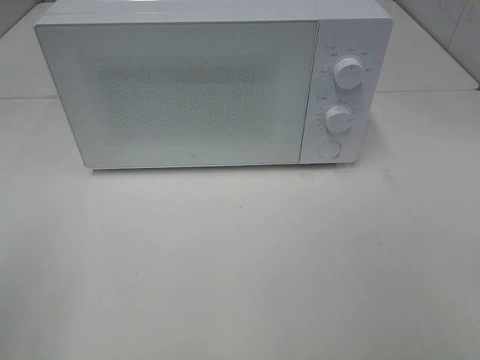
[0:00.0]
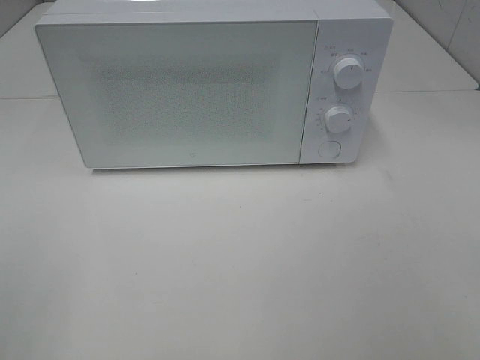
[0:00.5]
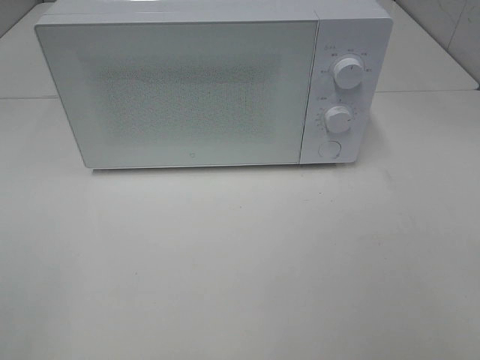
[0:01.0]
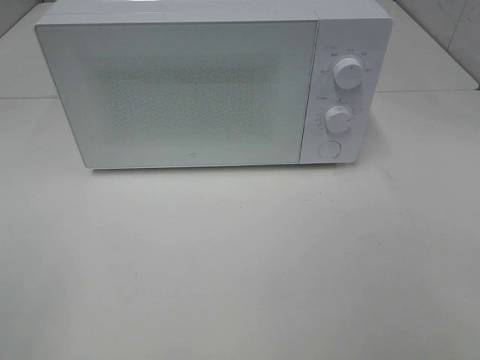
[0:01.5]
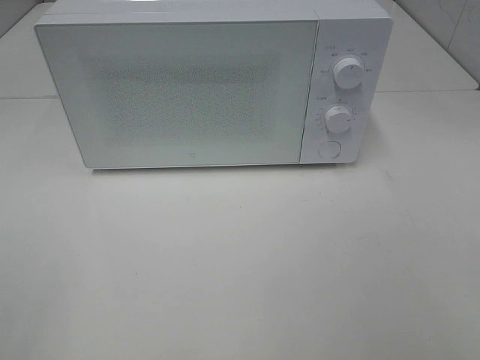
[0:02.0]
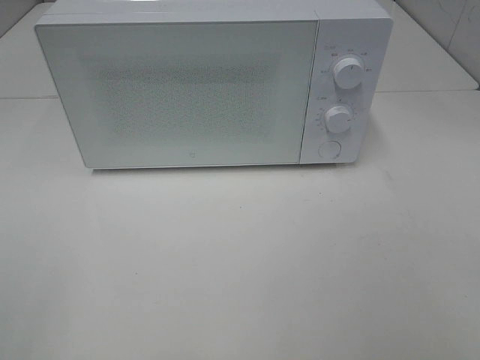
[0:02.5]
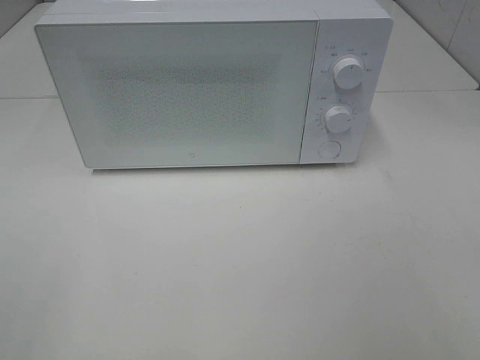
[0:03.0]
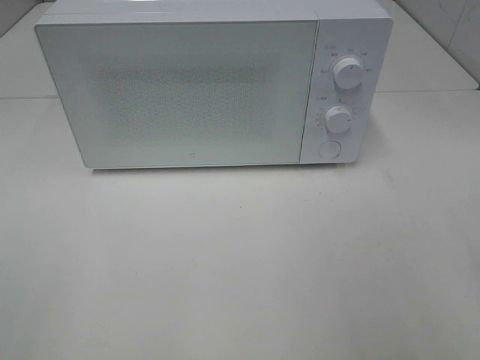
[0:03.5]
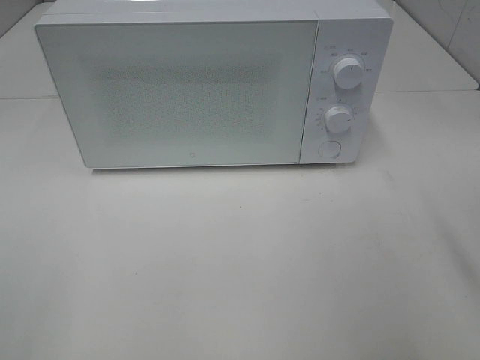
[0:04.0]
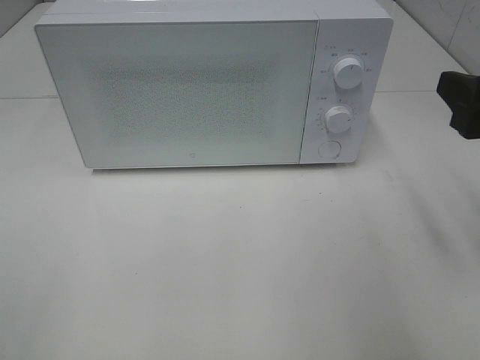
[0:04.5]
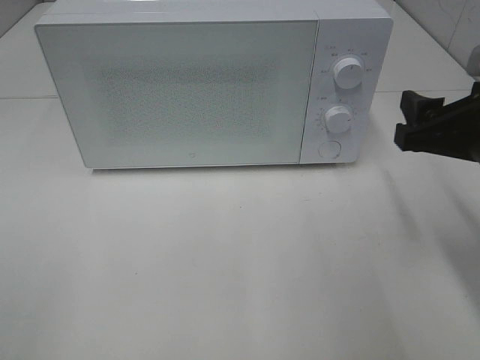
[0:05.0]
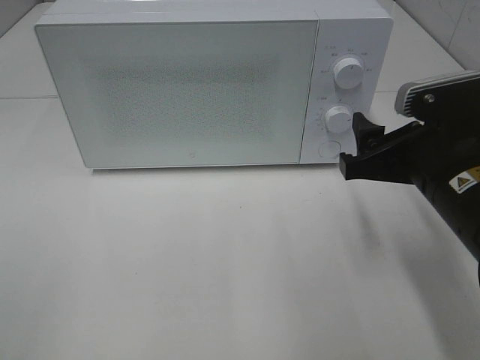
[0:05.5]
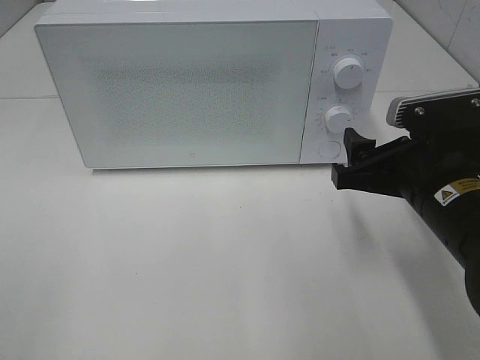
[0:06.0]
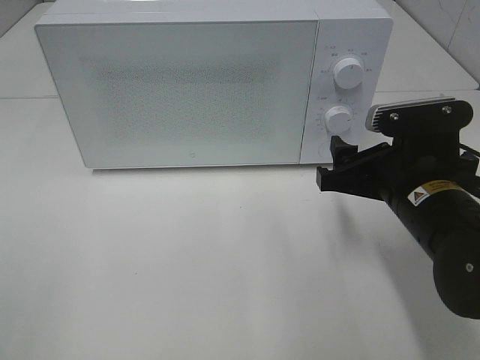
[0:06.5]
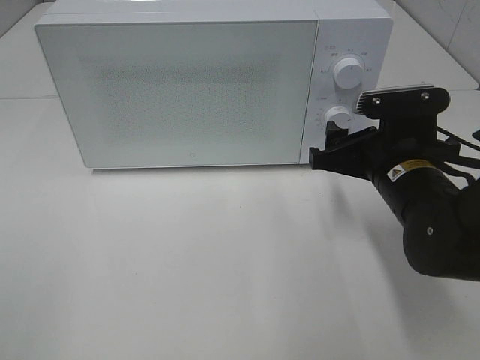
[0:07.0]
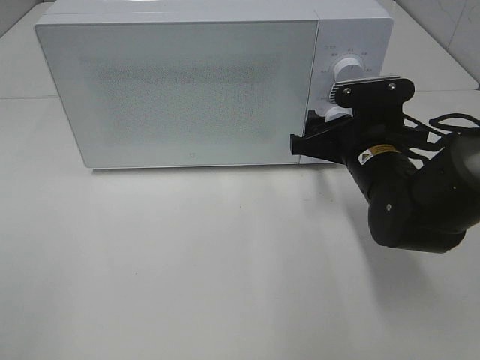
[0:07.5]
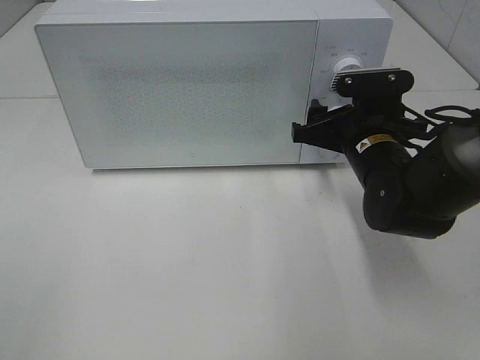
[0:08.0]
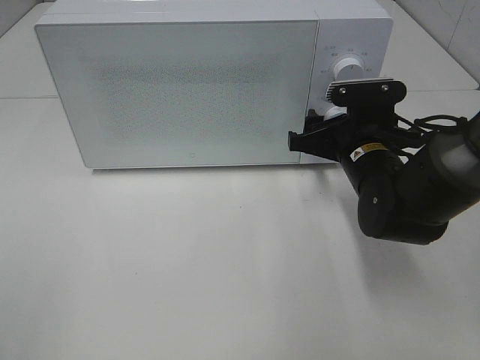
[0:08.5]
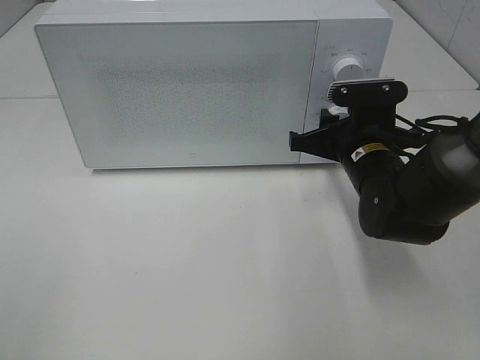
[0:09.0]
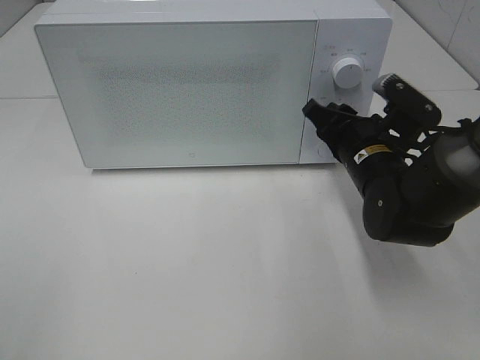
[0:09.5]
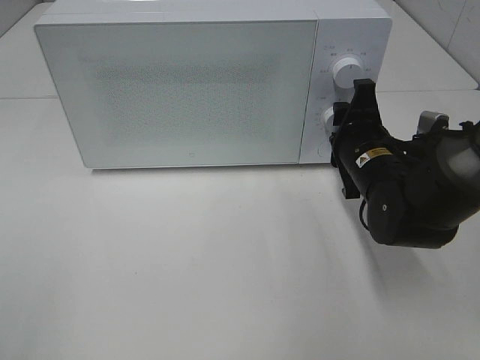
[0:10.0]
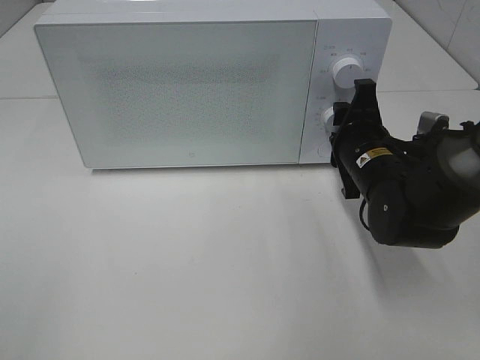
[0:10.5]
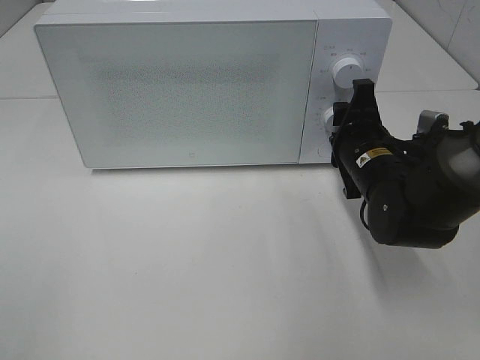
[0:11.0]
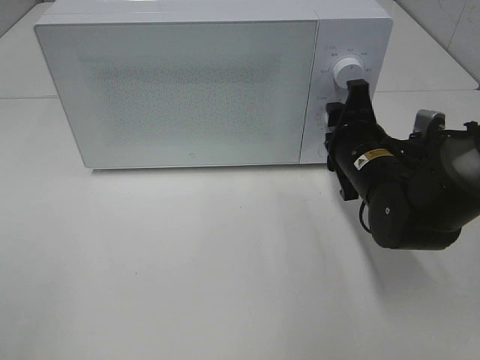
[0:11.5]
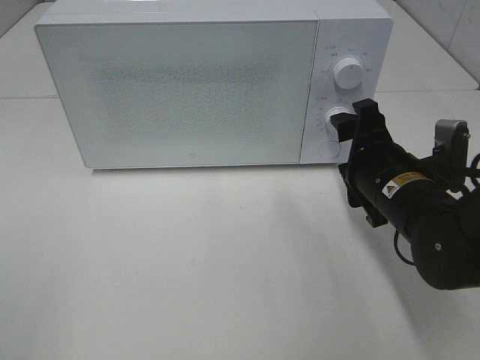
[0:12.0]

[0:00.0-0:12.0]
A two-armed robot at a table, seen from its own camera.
Task of the whole recording: Heat the burger.
Step, 0:00.0 to 0:11.5: Right hand: twist timer button.
0:04.0 to 0:06.0: The right gripper travels downward, to the left and forward by approximately 15 cm.
0:06.0 to 0:08.0: The right gripper heads forward, covering roughly 10 cm.
0:08.0 to 0:10.0: The right gripper closes up.
0:10.0 to 0:12.0: The right gripper goes some 5 cm backward.

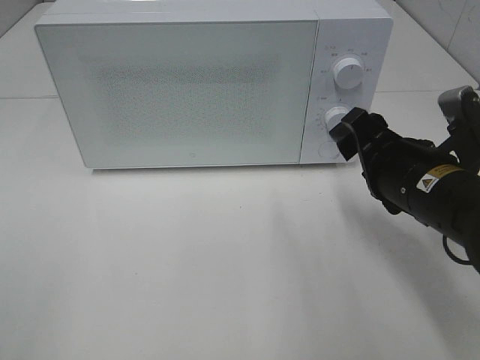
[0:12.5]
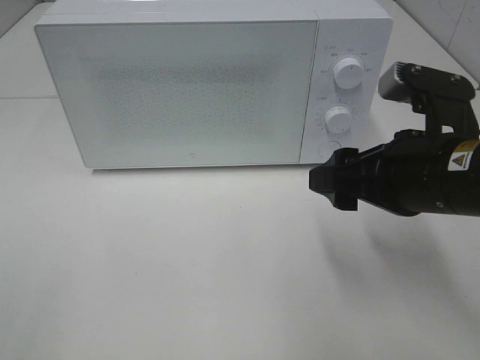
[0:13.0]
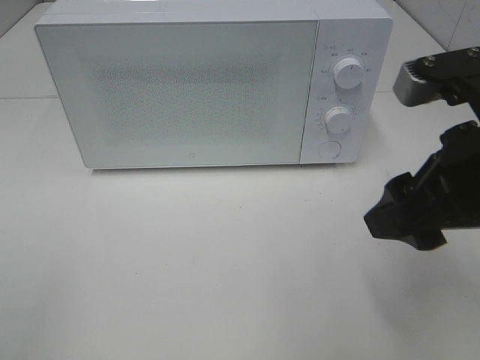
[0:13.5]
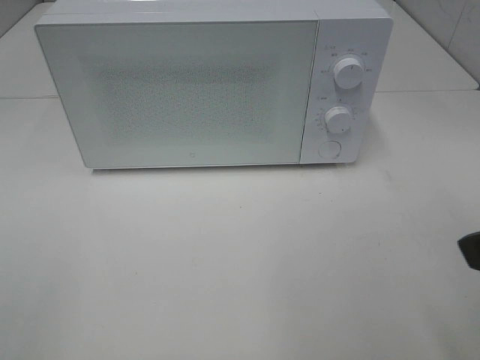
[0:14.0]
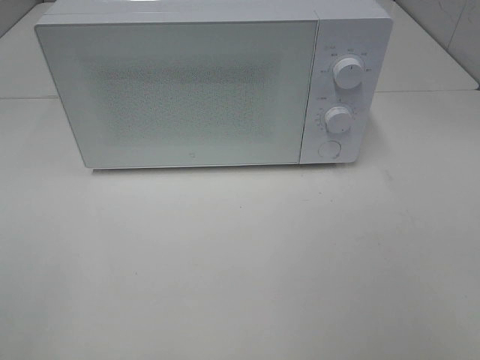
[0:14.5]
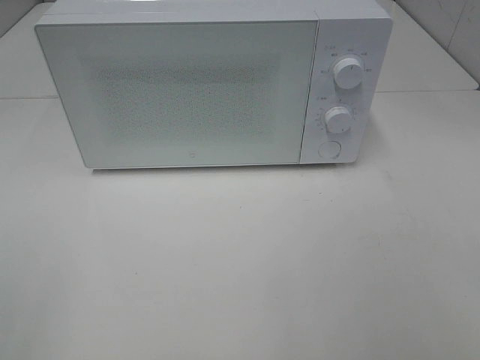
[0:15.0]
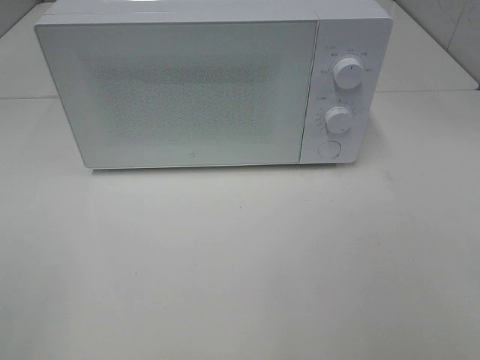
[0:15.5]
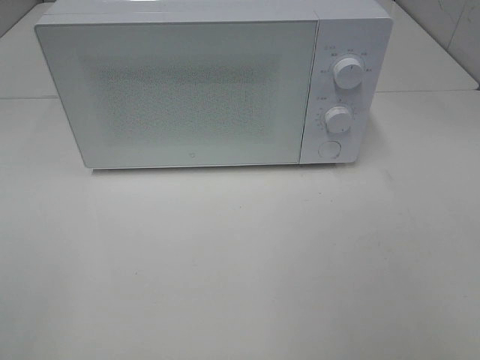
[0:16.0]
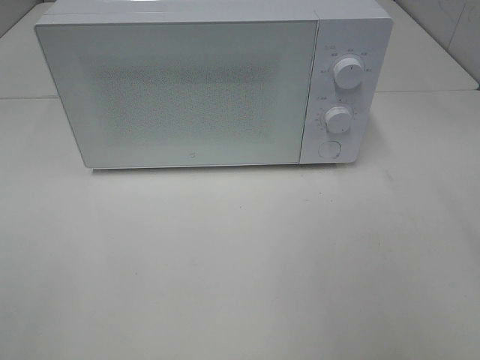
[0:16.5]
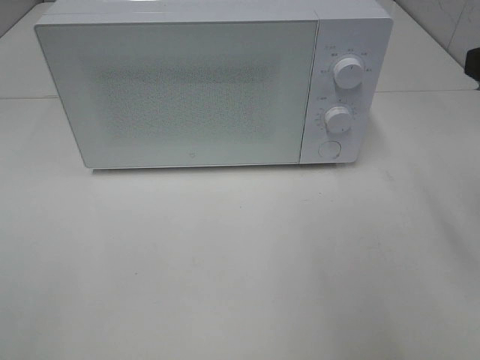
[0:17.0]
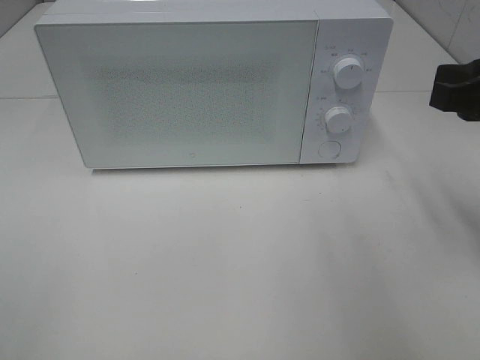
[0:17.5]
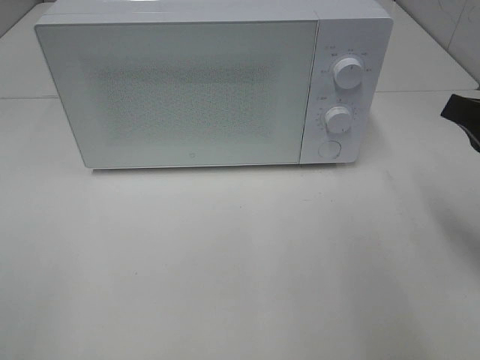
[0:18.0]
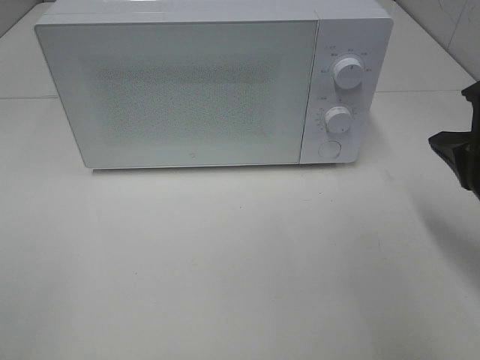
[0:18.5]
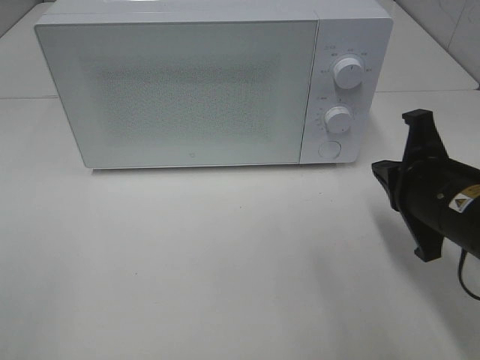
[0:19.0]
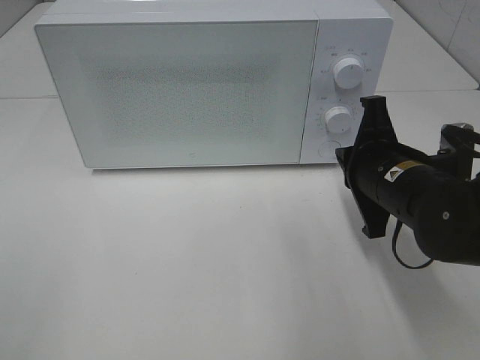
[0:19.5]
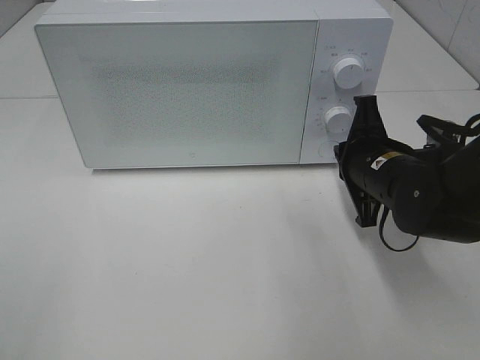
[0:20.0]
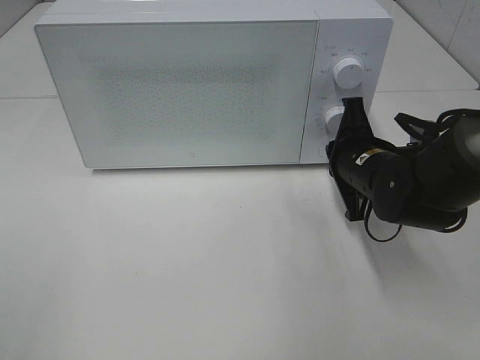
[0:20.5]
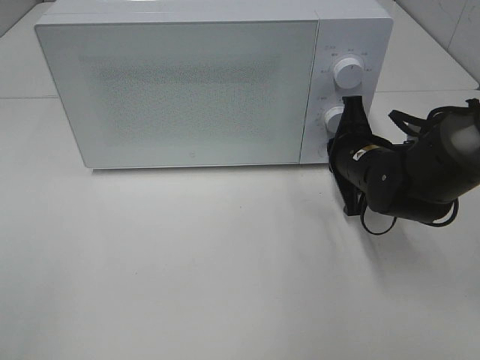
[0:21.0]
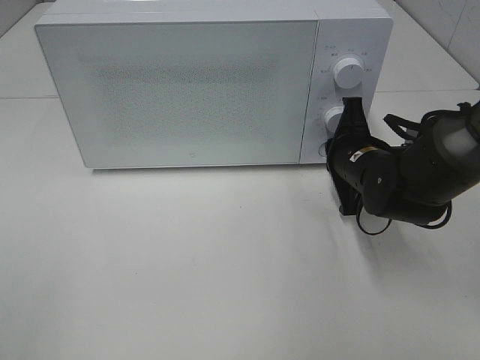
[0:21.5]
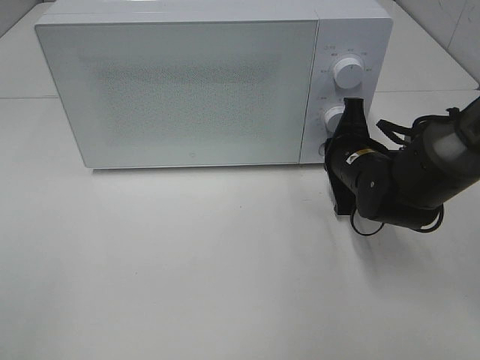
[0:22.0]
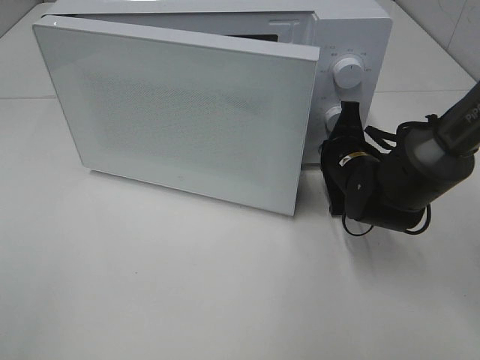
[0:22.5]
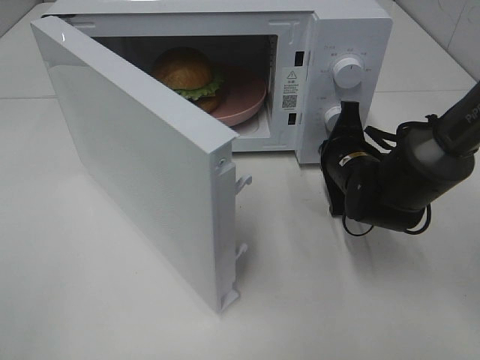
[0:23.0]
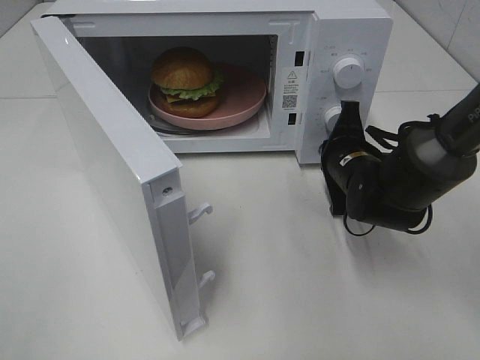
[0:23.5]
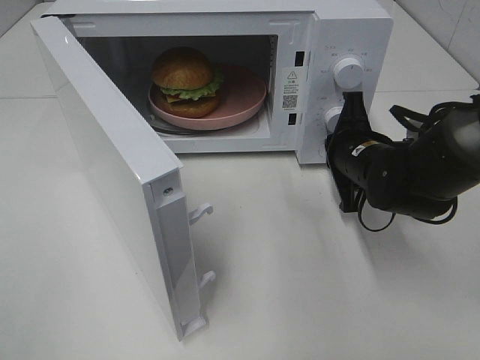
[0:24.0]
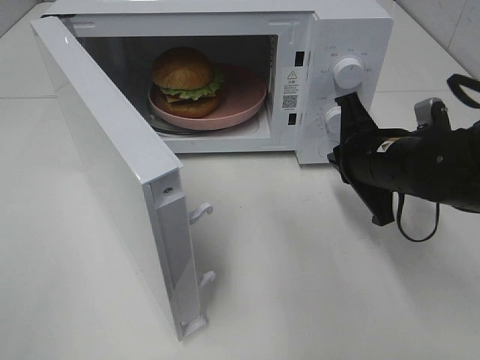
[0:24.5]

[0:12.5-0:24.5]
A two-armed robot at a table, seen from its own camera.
Task of the whole recording: Heat the burger.
Step, 0:12.5 to 0:24.0: Right hand: press the switch.
0:12.5 to 0:14.5: The right gripper heads backward, upward and to the right, covering approximately 30 cm.
0:16.5 to 0:18.5: The right gripper goes roughly 15 cm downward and forward, and closes up.
0:18.5 to 0:20.5: The right gripper heads forward, to the left and downward, covering roughly 15 cm.
0:20.5 to 0:22.5: The grippers move only a little.
0:22.5 to 0:24.5: The right gripper goes roughly 10 cm upward and backward.

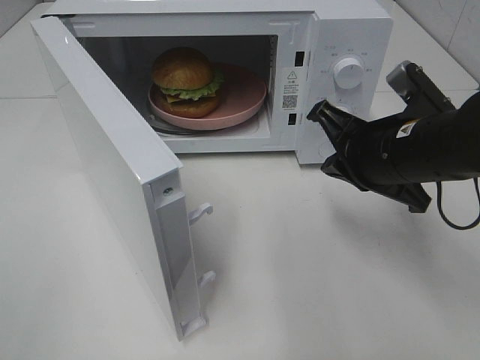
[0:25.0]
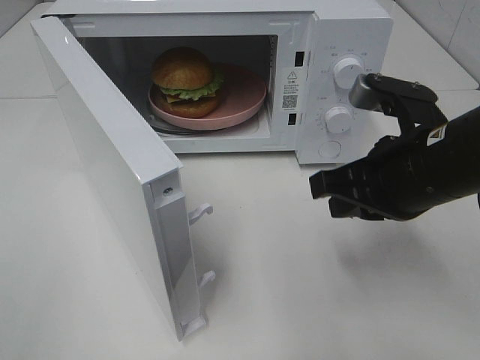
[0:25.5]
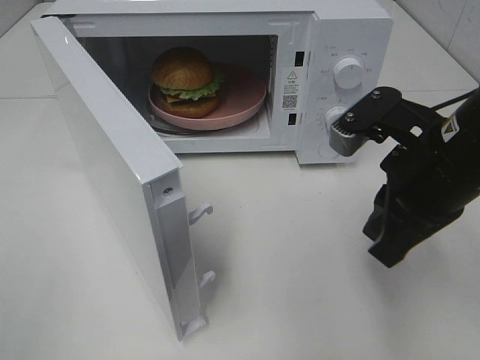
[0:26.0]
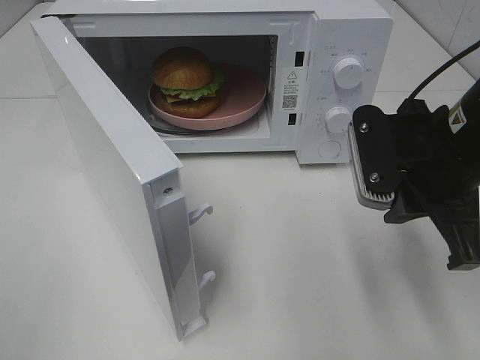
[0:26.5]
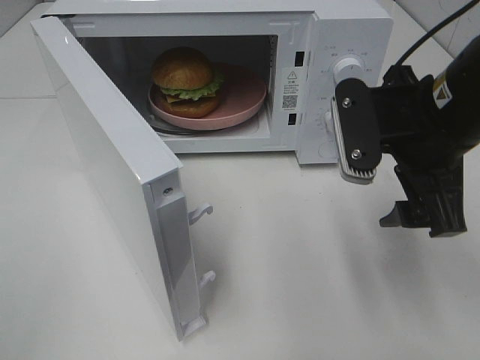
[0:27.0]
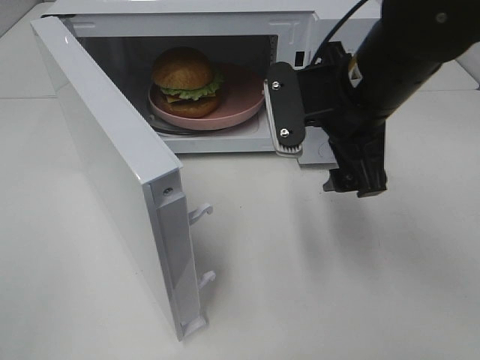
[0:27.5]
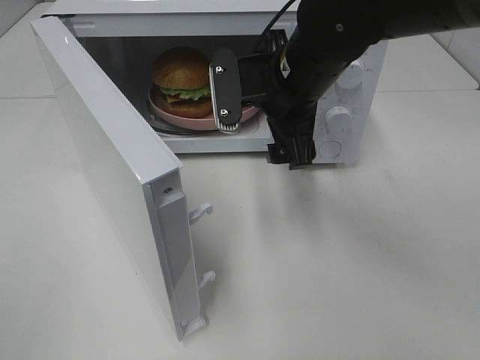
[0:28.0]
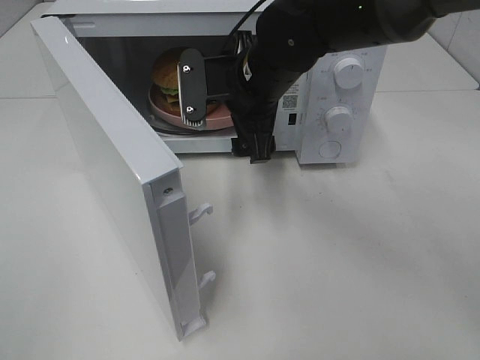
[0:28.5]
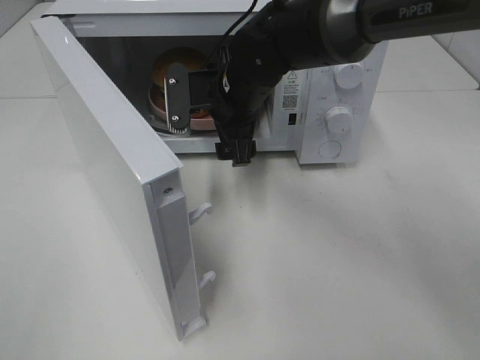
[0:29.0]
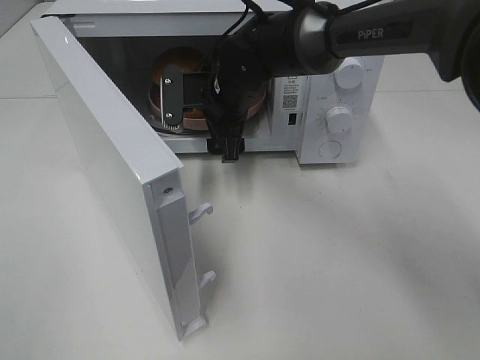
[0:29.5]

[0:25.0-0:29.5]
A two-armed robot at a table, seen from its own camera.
Task of the whole recording: Heat the burger.
0:25.0 to 0:27.0: The right gripper moves upward, about 5 cm, and opens up.
0:27.0 to 0:29.5: The right gripper heads forward, to the left and downward, covering approximately 25 cm.
